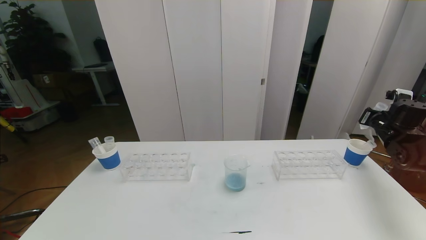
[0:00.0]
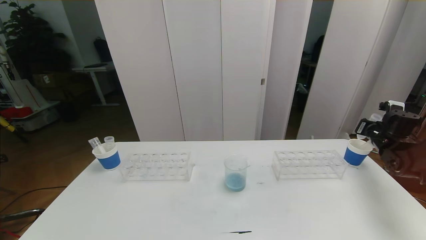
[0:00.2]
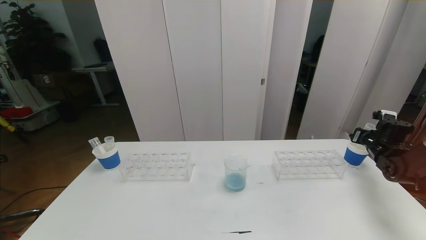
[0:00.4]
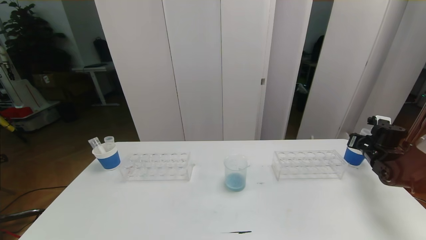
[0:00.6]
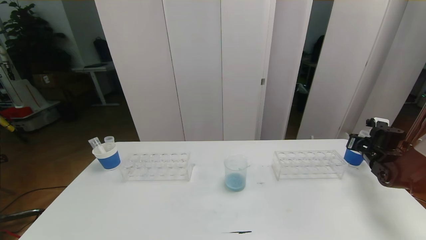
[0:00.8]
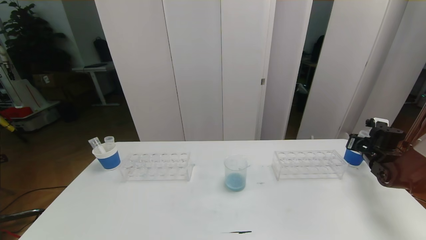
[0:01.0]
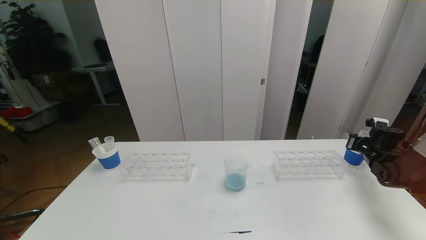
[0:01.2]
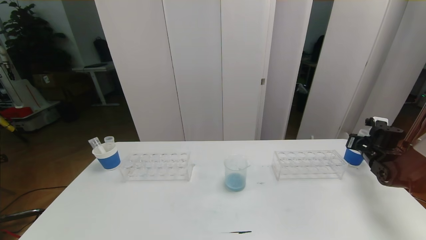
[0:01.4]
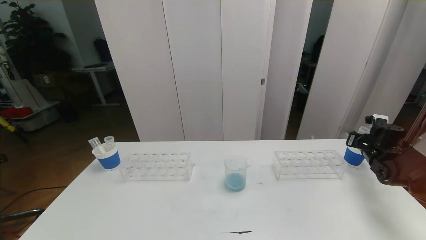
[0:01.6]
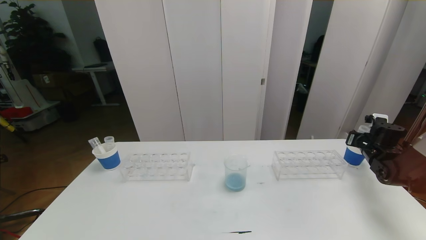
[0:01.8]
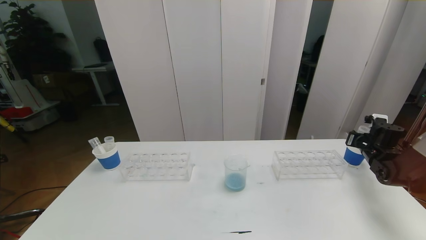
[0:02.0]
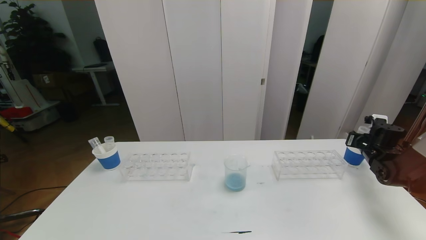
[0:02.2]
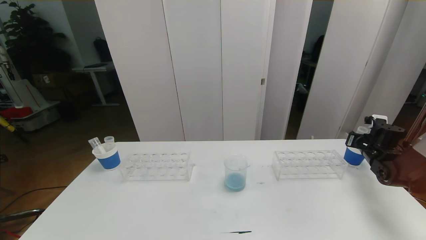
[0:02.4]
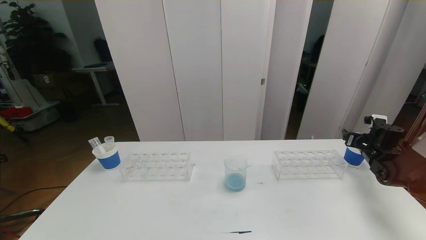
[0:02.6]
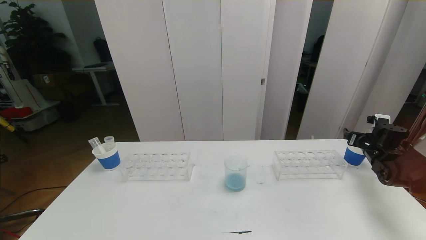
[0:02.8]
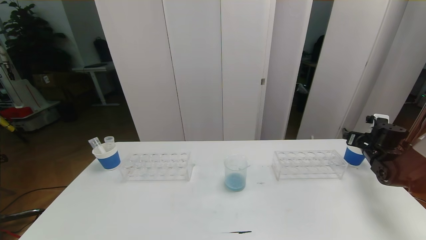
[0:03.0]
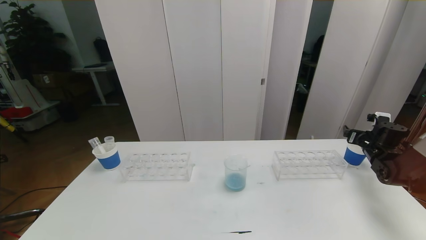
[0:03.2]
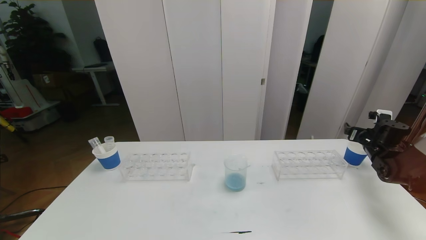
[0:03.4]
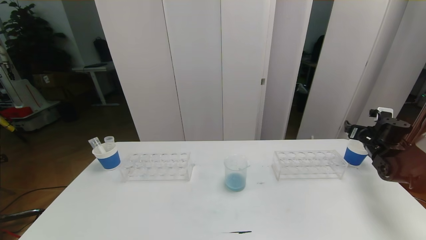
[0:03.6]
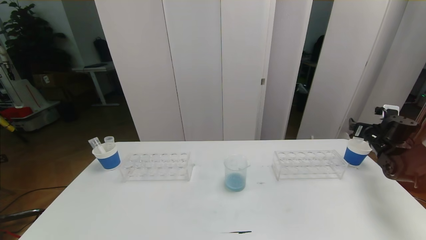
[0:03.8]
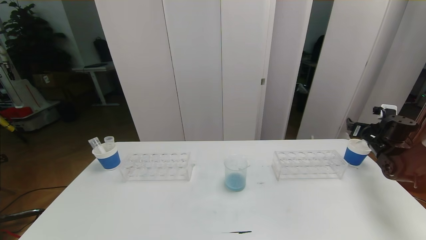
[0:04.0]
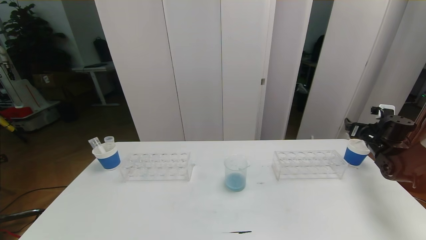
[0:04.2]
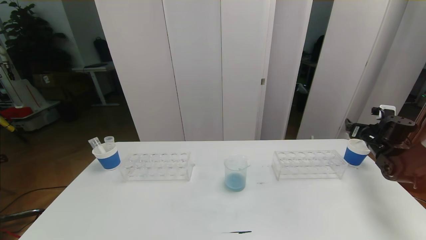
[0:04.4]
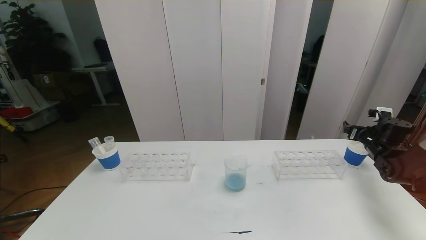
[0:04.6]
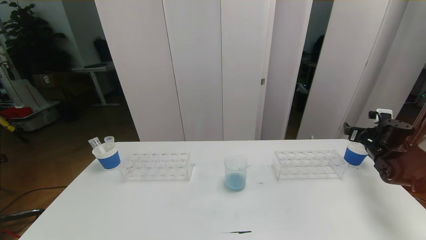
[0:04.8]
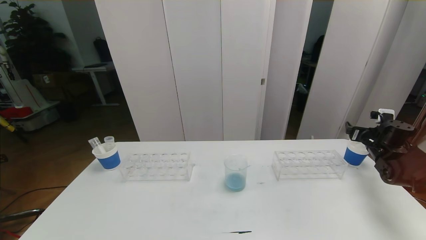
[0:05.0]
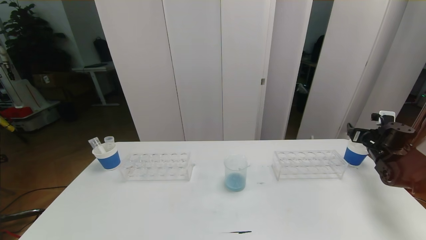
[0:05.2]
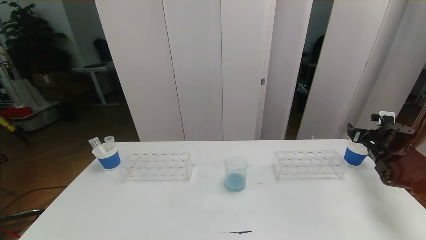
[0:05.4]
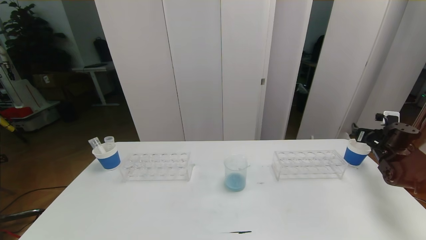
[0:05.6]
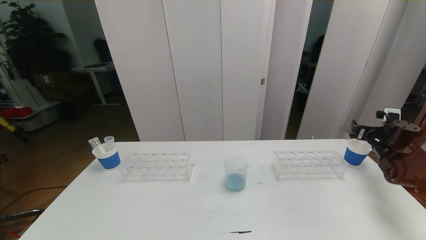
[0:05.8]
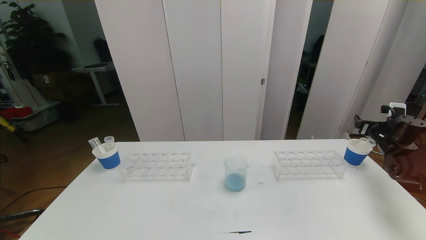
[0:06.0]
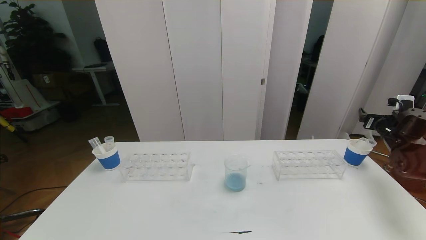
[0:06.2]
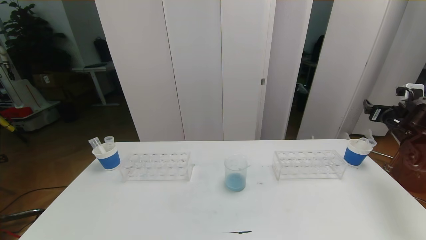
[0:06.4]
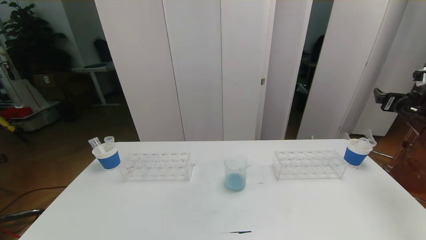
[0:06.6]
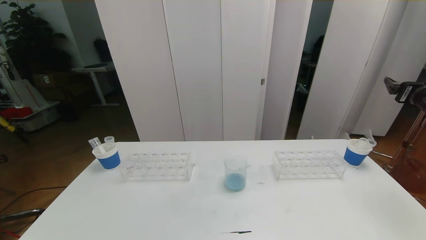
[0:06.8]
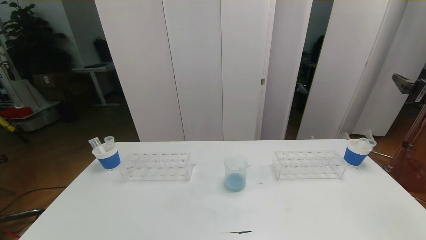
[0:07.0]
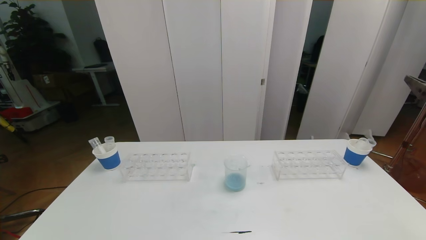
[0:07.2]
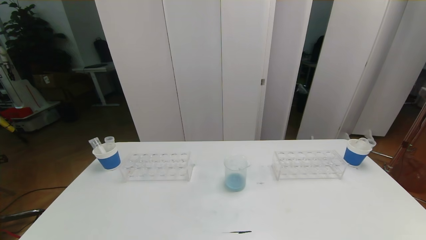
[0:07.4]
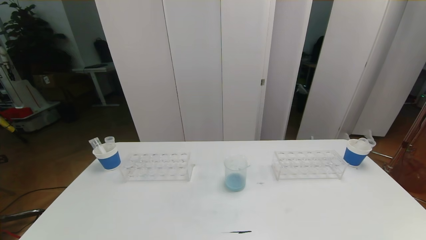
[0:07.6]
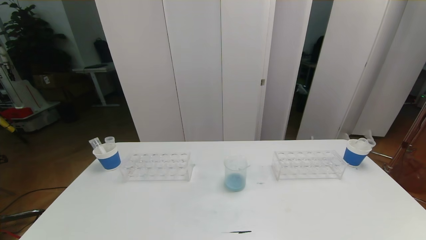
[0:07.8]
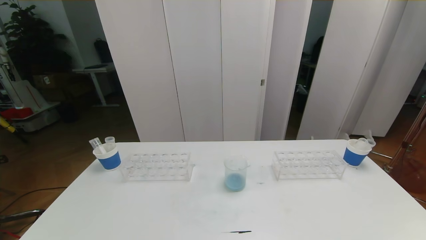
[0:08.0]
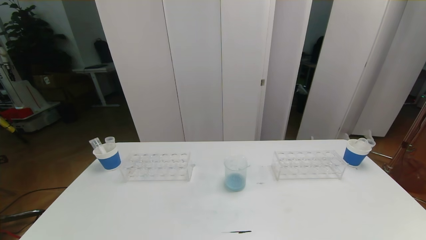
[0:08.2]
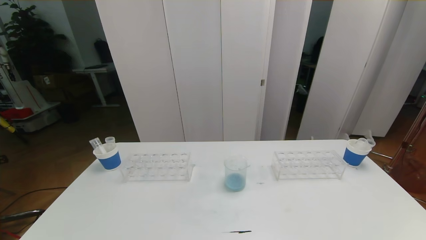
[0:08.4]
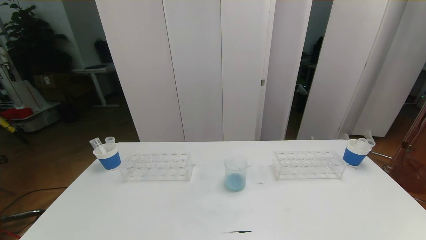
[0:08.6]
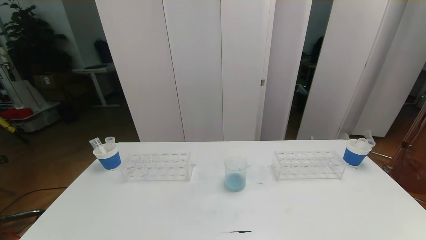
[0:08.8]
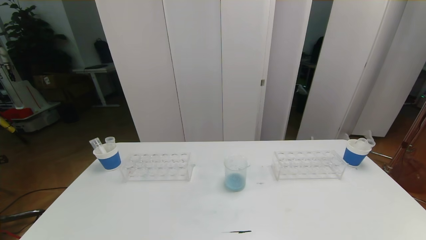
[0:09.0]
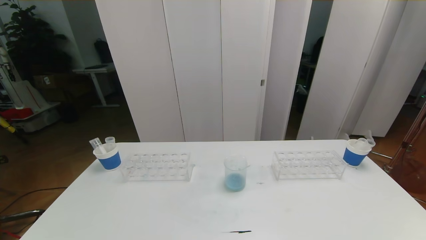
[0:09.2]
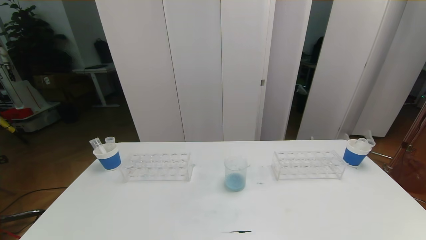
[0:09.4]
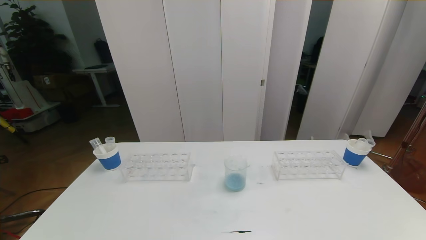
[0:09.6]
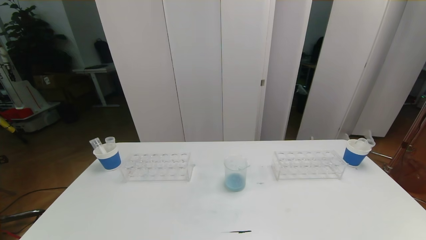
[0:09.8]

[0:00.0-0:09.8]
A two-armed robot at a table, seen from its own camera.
Task of the whole recording: pick up the test tube with red pigment the test tube with blue pigment and the test tube with white pigment by grippers and pour them into the beaker.
Step, 0:00.0 to 0:09.8: Pour the white reagent into the graduated cylinder and place the test tube into the paper cup.
0:00.0 to 0:01.4: The right gripper goes approximately 10 cm downward.
0:01.4 to 0:02.8: The right gripper opens.
0:02.8 to 0:05.6: The grippers stay close to where they were, moving slightly.
0:05.6 to 0:07.0: The right gripper goes some 25 cm upward and backward.
